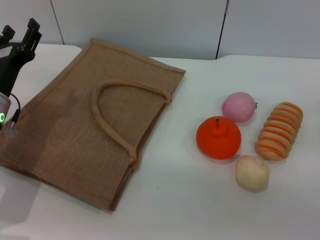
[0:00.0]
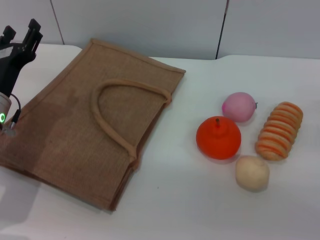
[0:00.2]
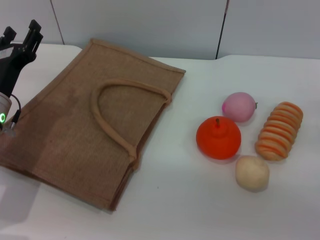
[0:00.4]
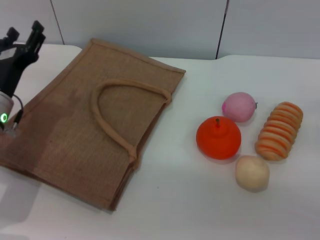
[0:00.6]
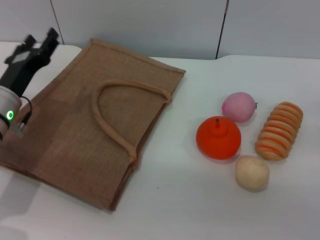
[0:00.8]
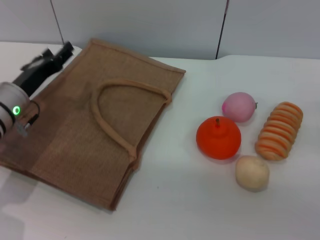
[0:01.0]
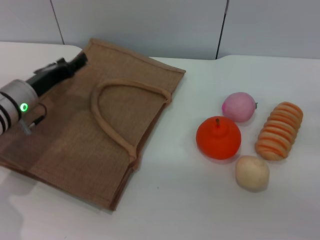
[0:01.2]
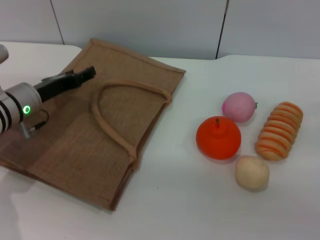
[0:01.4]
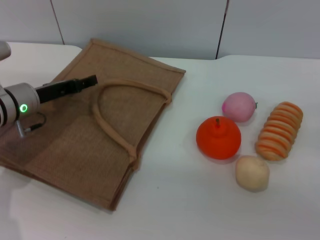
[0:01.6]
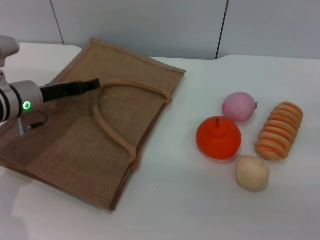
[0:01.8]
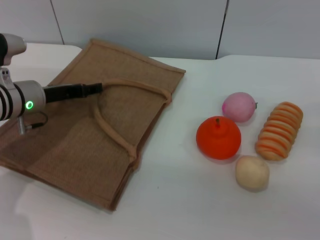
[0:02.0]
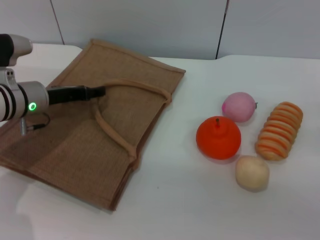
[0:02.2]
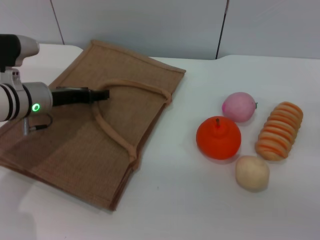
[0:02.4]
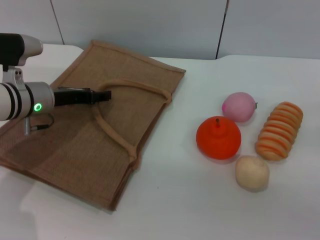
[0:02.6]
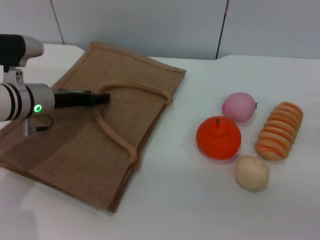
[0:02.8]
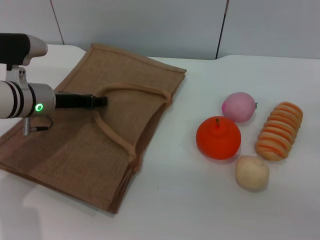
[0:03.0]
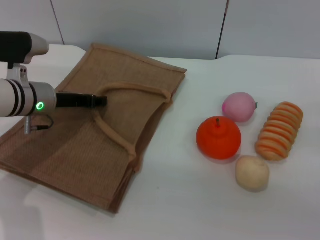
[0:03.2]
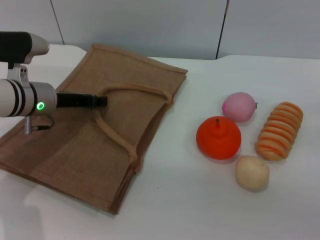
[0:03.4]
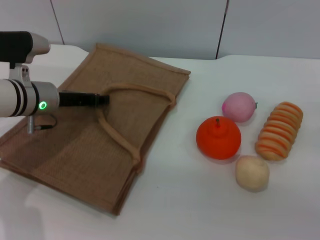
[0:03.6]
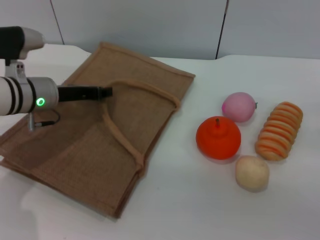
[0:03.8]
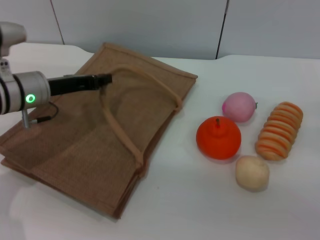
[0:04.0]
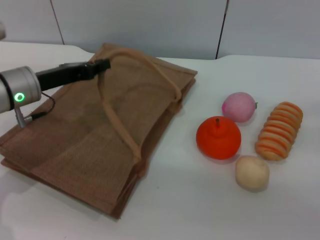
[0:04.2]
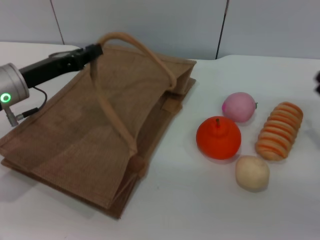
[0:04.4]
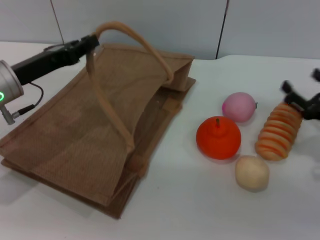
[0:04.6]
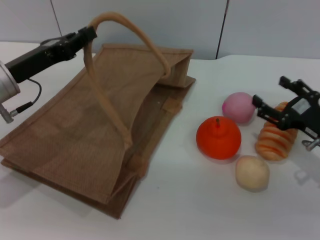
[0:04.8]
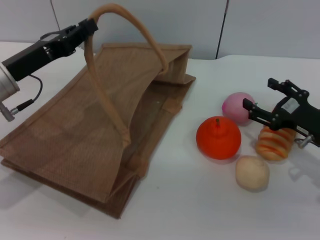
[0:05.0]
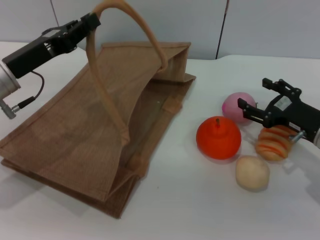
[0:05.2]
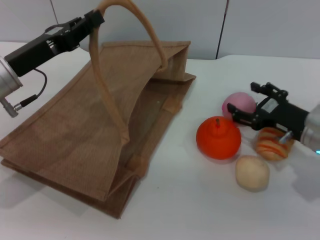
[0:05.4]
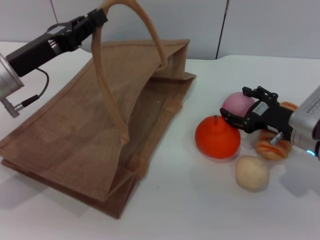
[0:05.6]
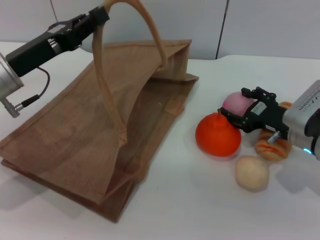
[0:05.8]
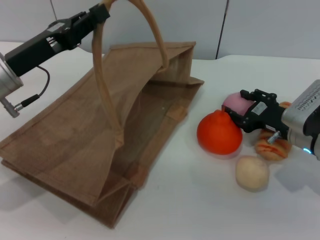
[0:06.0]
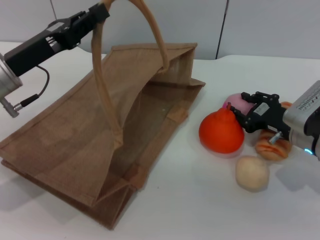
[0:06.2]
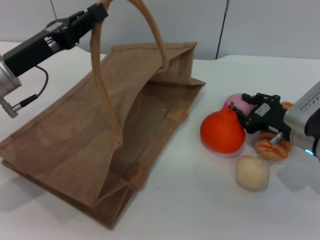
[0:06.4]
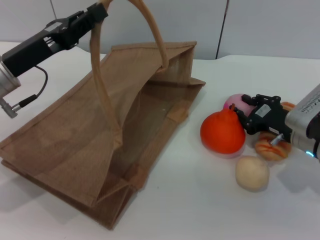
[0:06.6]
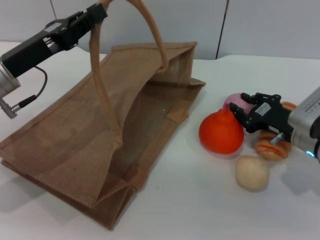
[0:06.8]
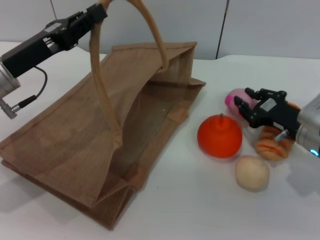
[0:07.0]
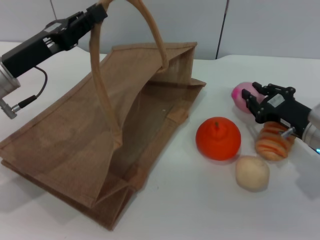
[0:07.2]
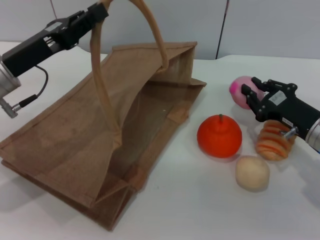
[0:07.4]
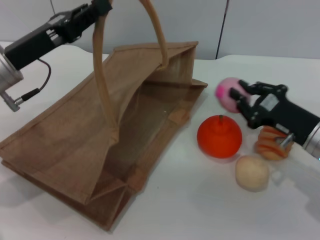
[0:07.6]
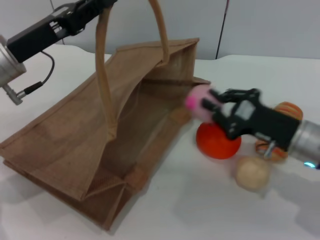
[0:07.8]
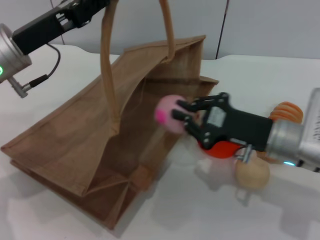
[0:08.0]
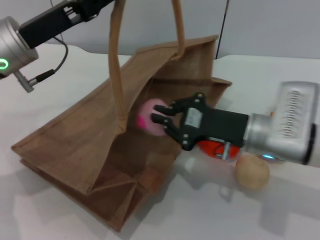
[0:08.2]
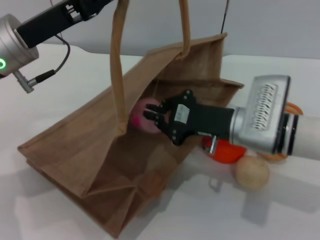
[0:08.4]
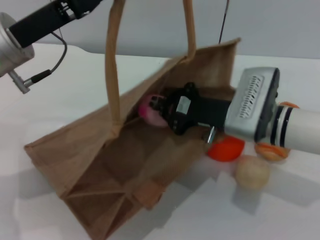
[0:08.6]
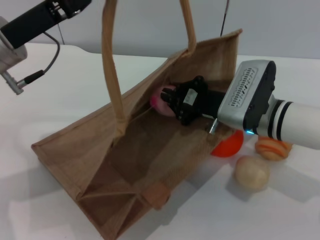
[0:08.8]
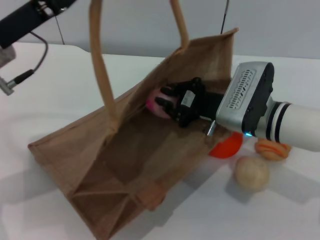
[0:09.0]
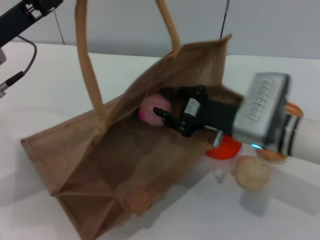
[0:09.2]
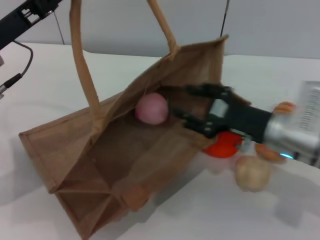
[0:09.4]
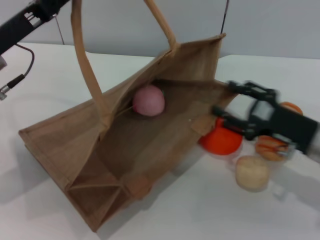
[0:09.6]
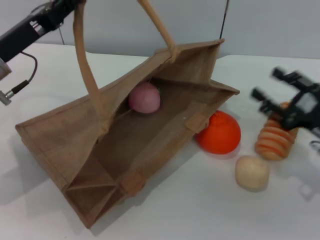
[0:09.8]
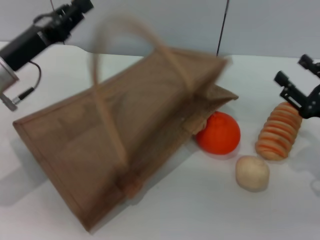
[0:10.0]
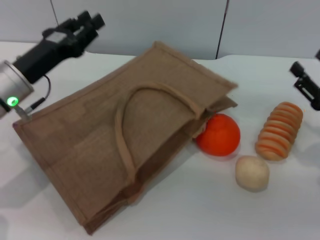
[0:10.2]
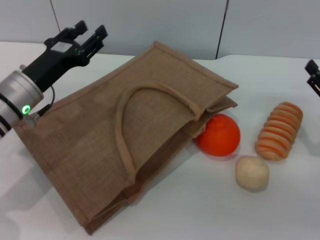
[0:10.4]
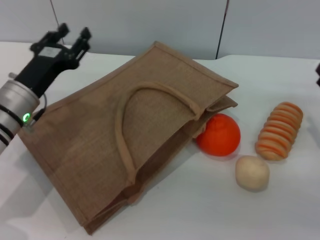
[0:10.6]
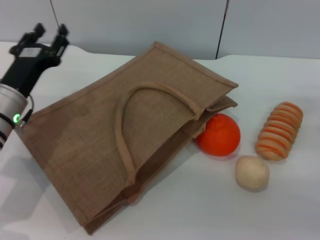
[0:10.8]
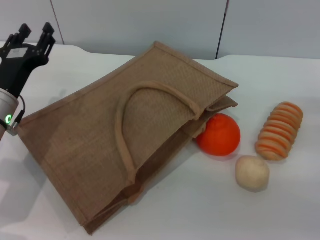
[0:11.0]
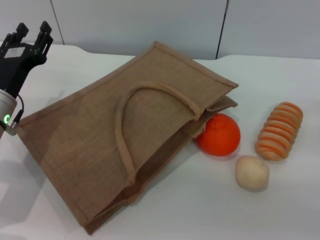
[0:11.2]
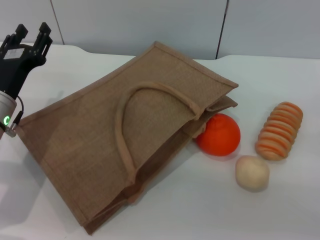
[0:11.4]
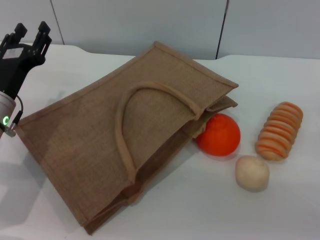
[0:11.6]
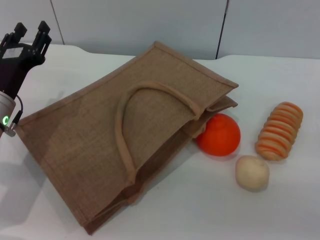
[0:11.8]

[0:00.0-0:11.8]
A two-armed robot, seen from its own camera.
Task of the whole recording: pick up the peach from the table and place it in the brown handbag.
Step, 0:00.0 to 0:04.2: Lift the woven bag with the left gripper to open it.
Step, 0:04.4 to 0:07.4: Pick up the peach with the right gripper.
Step, 0:07.6 to 0:09.4: Place the peach into the woven bag with the right gripper.
Step, 0:09.6 to 0:10.8: Lower the woven bag with the left gripper to close it.
0:00.0 to 0:01.4: The left gripper moves forward, some 5 cm.
0:03.0 to 0:04.4: The left gripper changes place by roughly 5 cm, and closes up.
0:04.4 to 0:06.0: The right gripper moves to the left and forward, approximately 10 cm.
0:06.0 to 0:07.4: The right gripper closes.
0:07.4 to 0:08.8: The right gripper is displaced to the left by approximately 10 cm.
0:08.8 to 0:10.4: The right gripper moves to the right, roughly 20 cm, and opens its fingers, while the left gripper is displaced downward by roughly 10 cm, and opens.
0:10.4 to 0:11.8: The right gripper shifts by about 5 cm.

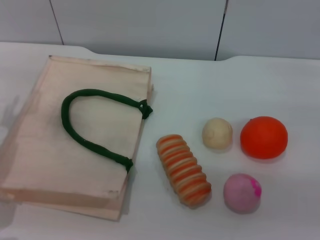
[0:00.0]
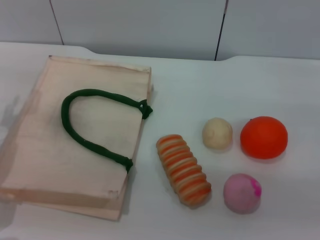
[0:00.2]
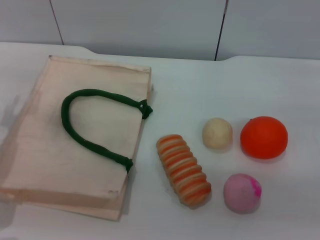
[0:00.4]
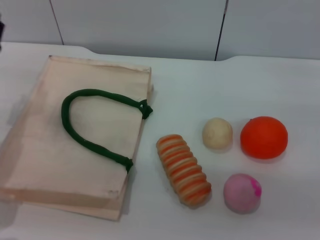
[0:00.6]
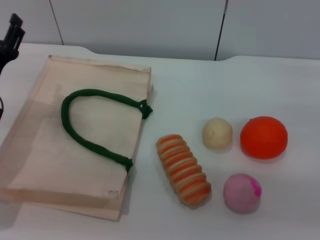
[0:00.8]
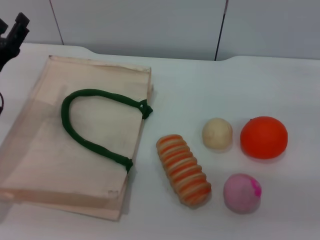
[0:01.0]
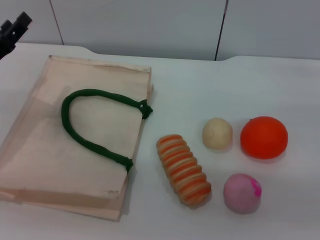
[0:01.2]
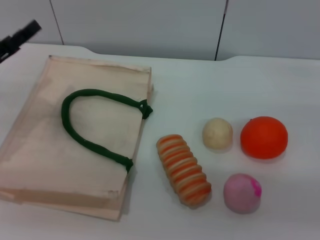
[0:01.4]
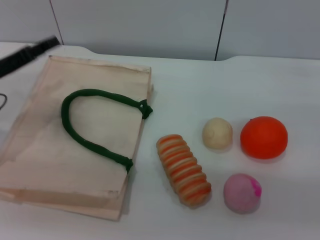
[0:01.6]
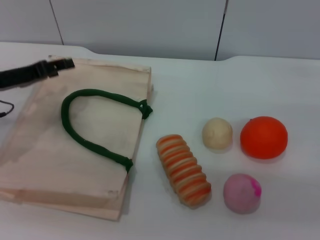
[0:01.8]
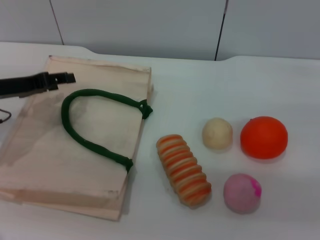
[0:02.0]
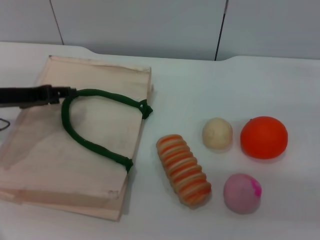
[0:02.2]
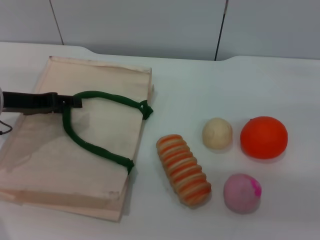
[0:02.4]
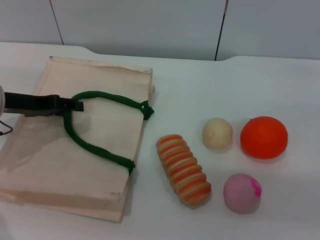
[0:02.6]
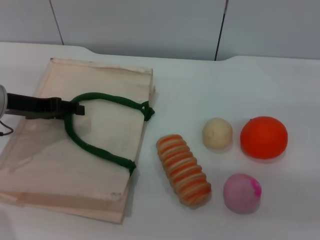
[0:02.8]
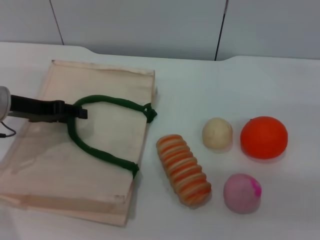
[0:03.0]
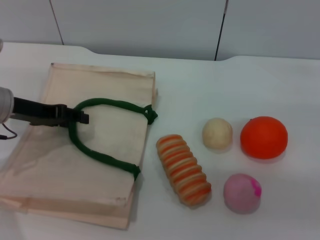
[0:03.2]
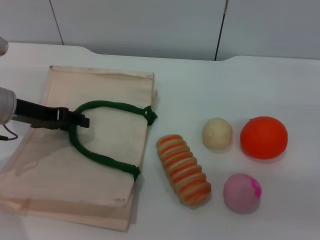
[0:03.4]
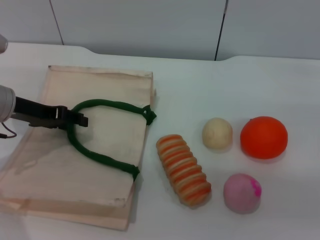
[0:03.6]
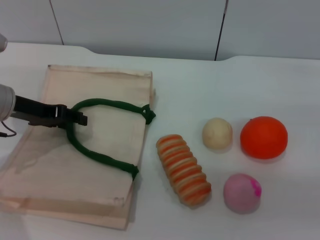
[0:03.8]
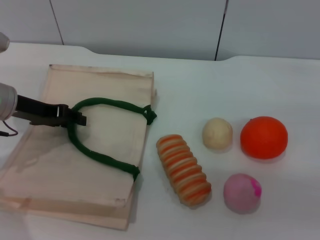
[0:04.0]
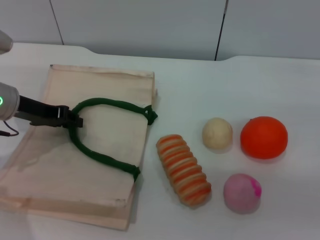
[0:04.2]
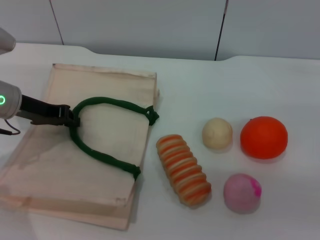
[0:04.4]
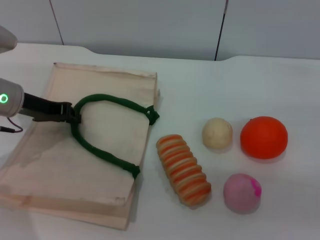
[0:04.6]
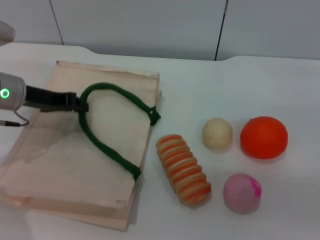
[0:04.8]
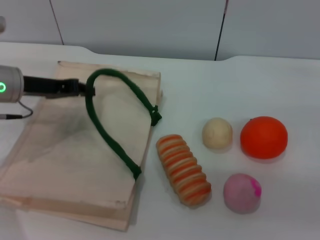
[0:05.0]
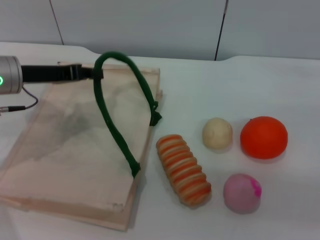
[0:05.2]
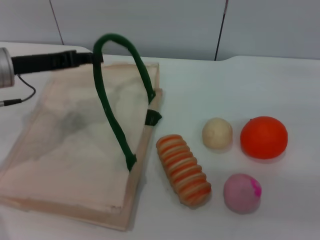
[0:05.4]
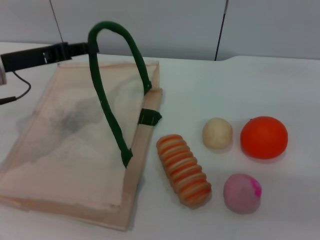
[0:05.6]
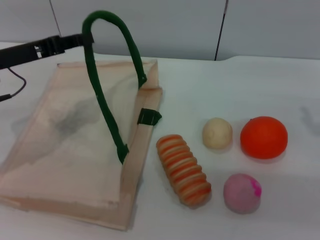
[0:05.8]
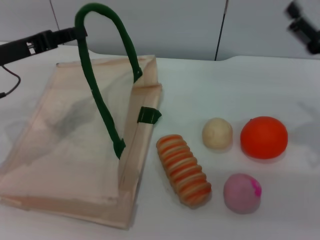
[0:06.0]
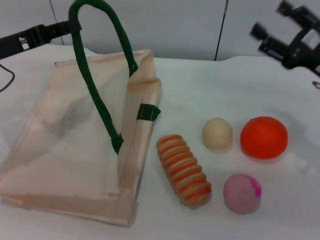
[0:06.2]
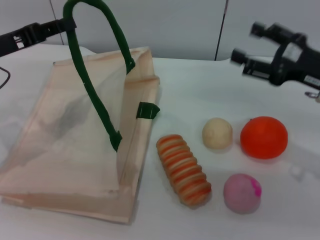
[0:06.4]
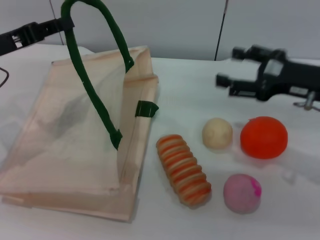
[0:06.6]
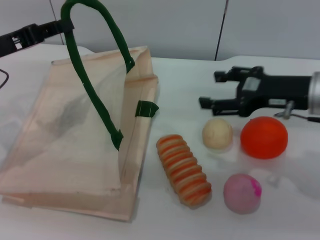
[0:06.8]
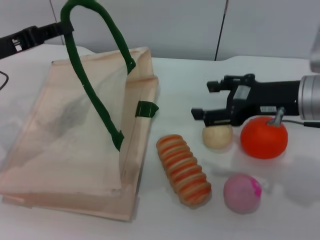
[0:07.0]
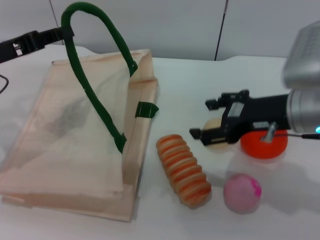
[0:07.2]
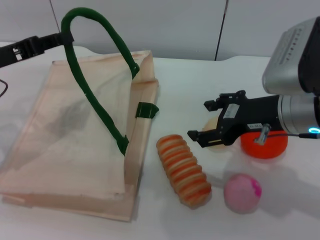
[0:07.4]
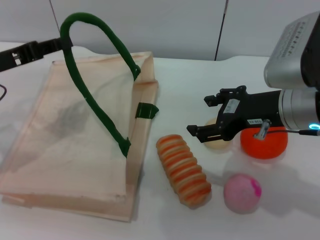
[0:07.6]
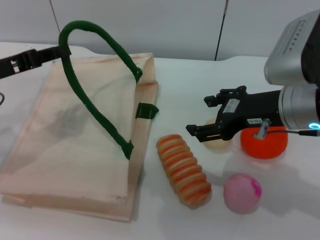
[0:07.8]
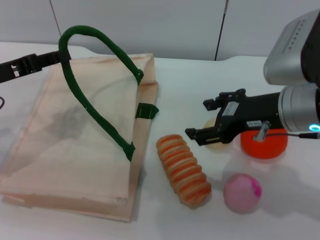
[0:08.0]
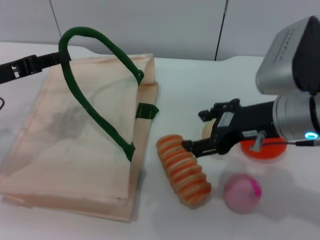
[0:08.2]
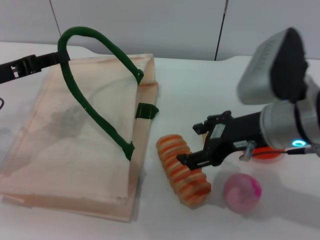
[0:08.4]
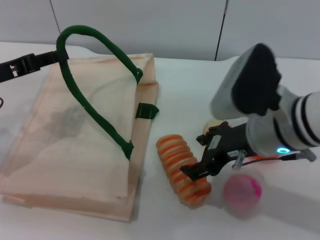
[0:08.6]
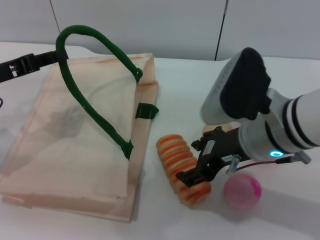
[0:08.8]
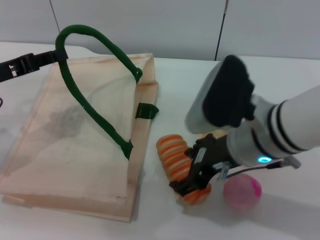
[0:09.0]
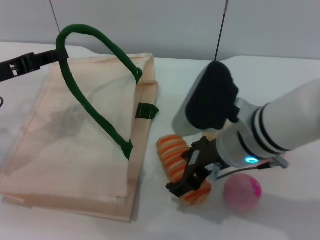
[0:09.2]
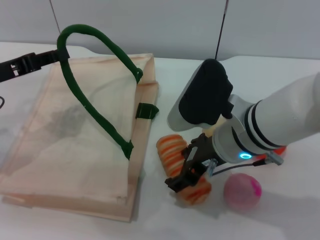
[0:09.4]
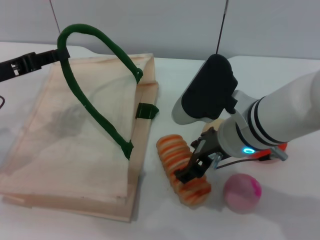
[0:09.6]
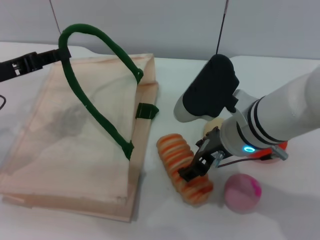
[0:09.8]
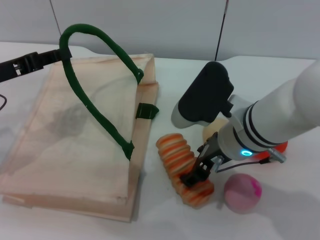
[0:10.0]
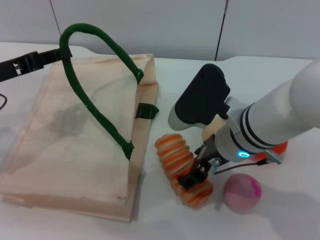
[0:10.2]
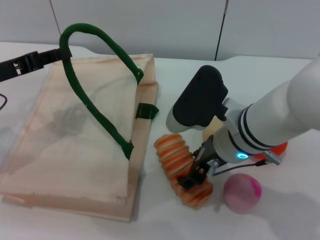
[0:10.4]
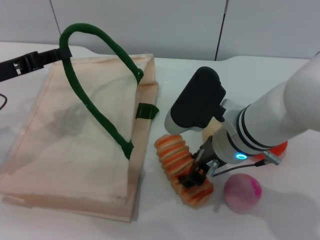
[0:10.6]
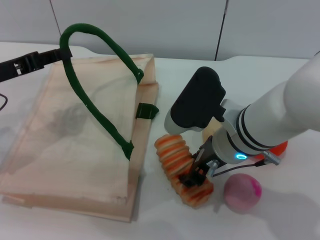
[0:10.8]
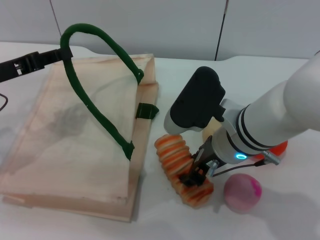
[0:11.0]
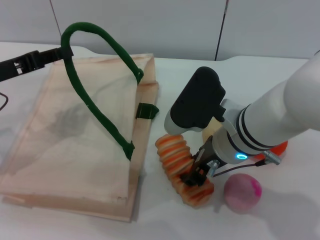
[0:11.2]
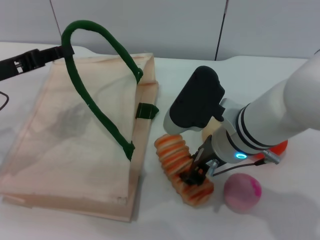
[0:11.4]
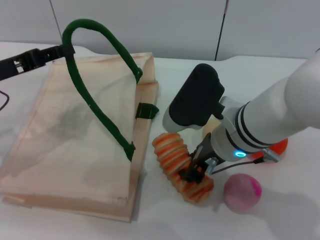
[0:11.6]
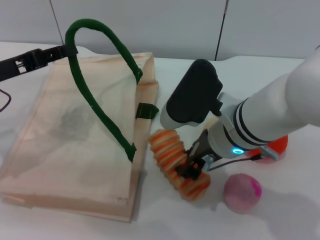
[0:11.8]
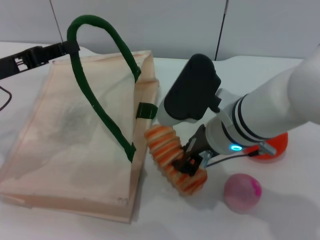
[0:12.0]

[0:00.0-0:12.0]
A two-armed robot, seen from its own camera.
Task of the whole recording: pick up the bread and egg yolk pastry from the table and place it in the white handbag.
Step, 0:00.0 to 0:05.8: Lift the woven bag with the left gripper to open it.
0:00.0 to 0:01.6: The left gripper ends up some 5 cm from where it was.
0:03.0 to 0:04.4: The left gripper closes.
0:04.4 to 0:06.0: The left gripper ends up some 5 cm from where it was, while the right gripper travels to the left by roughly 5 cm.
0:06.0 to 0:07.6: The right gripper shifts roughly 15 cm to the left and upward.
0:07.6 to 0:09.0: The right gripper travels to the left by about 5 cm.
0:09.0 to 0:10.4: There are only small adjustments of the grippers.
0:10.4 to 0:12.0: The right gripper closes its fingers.
